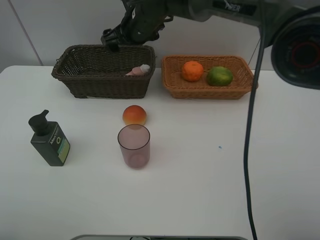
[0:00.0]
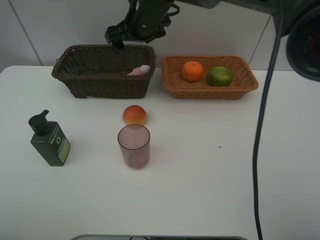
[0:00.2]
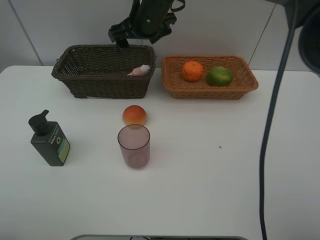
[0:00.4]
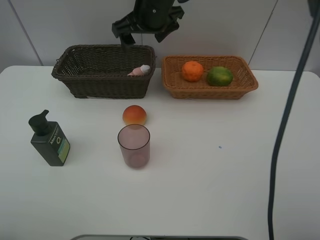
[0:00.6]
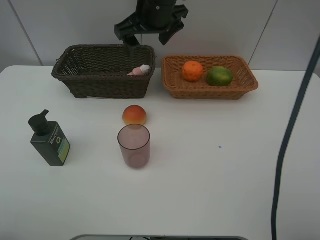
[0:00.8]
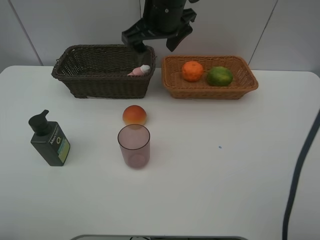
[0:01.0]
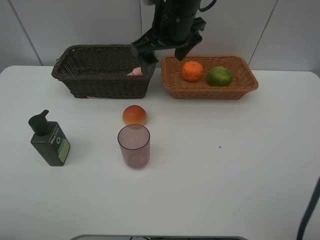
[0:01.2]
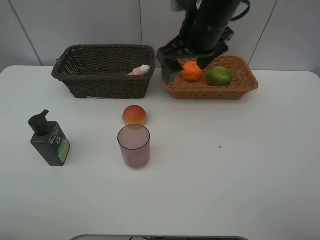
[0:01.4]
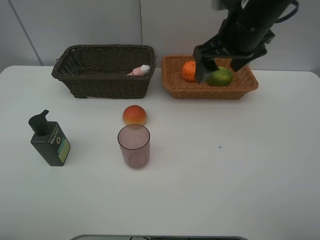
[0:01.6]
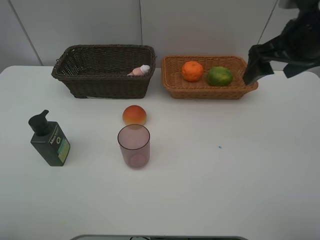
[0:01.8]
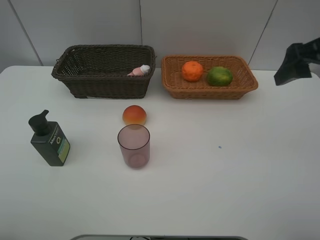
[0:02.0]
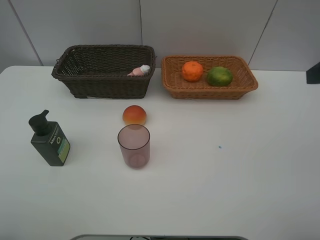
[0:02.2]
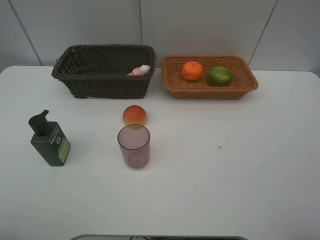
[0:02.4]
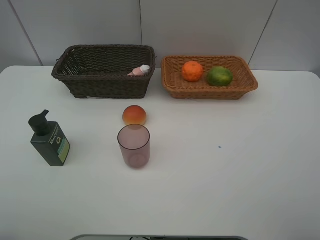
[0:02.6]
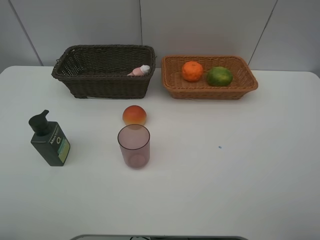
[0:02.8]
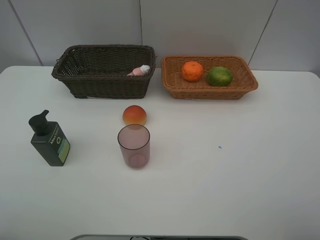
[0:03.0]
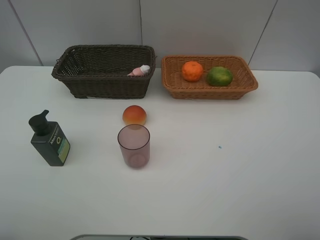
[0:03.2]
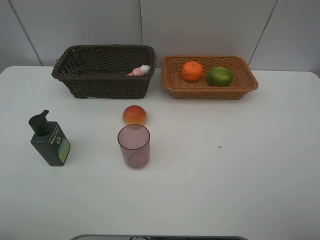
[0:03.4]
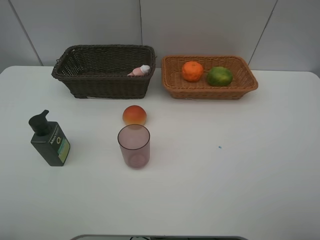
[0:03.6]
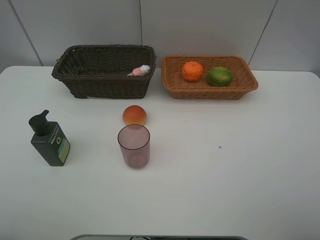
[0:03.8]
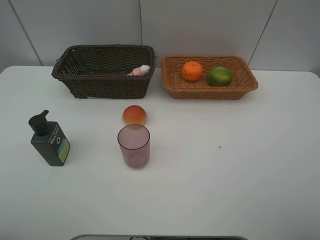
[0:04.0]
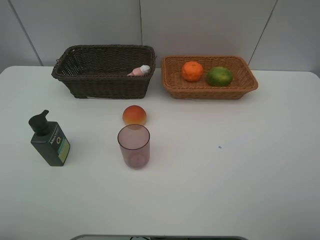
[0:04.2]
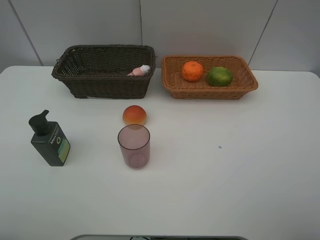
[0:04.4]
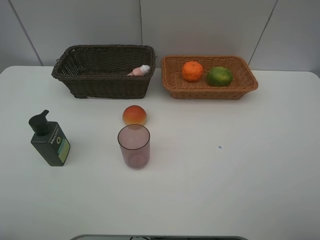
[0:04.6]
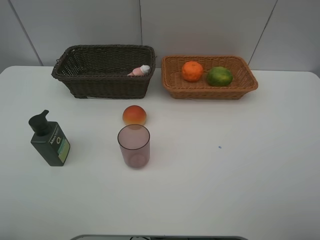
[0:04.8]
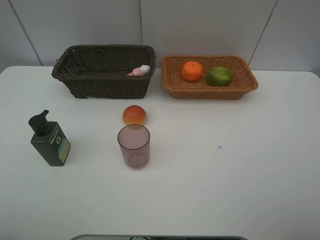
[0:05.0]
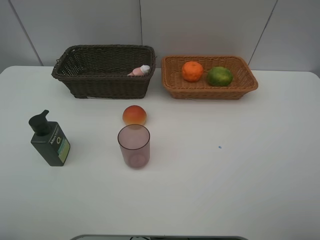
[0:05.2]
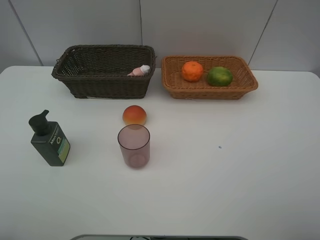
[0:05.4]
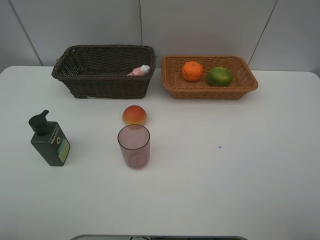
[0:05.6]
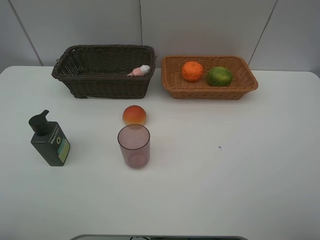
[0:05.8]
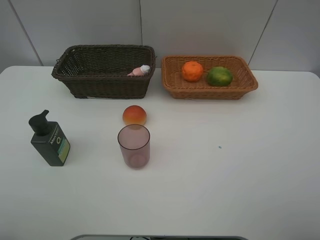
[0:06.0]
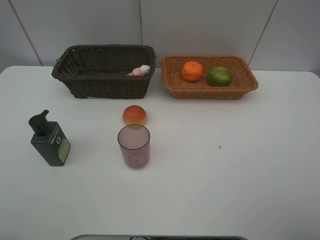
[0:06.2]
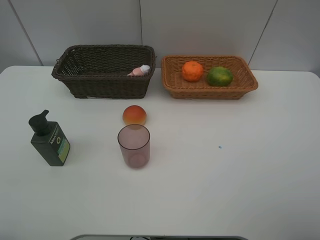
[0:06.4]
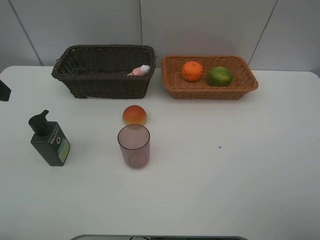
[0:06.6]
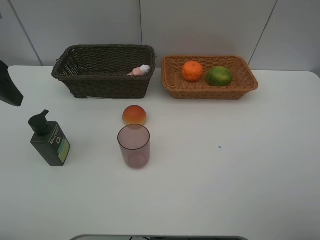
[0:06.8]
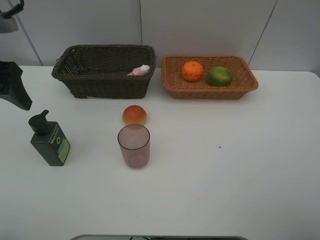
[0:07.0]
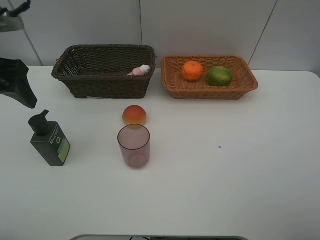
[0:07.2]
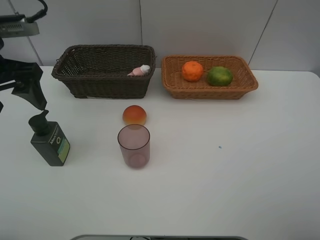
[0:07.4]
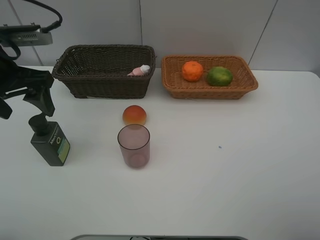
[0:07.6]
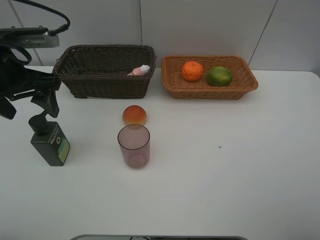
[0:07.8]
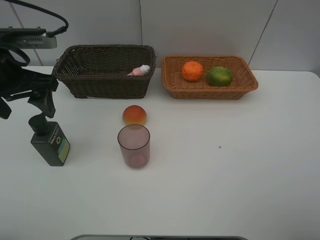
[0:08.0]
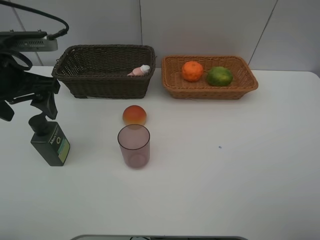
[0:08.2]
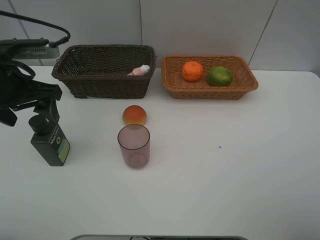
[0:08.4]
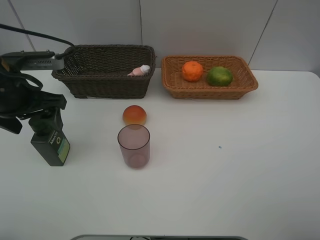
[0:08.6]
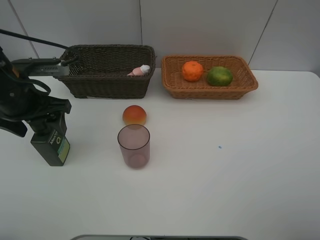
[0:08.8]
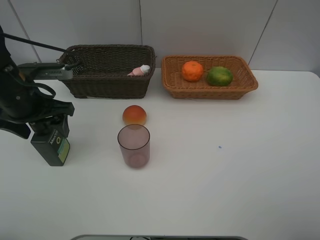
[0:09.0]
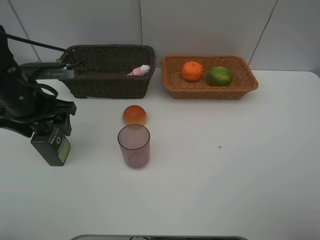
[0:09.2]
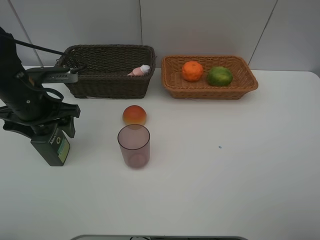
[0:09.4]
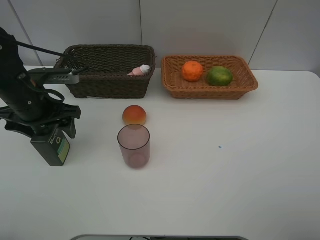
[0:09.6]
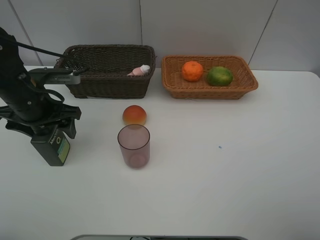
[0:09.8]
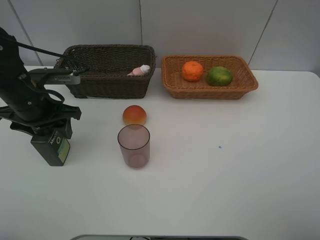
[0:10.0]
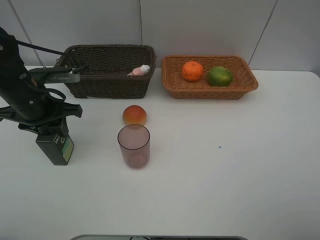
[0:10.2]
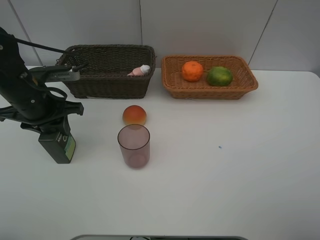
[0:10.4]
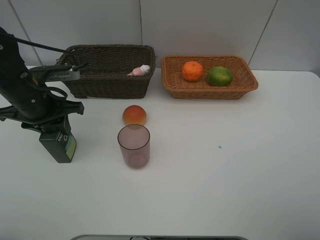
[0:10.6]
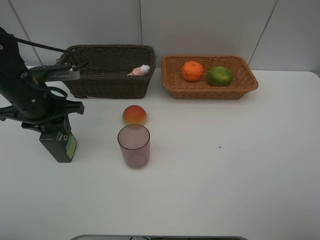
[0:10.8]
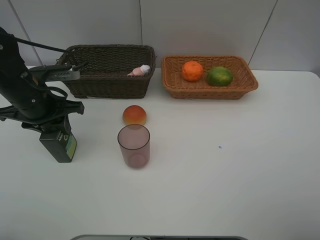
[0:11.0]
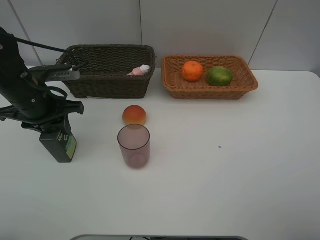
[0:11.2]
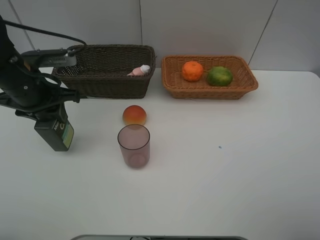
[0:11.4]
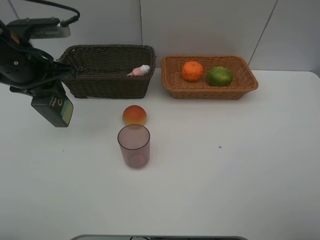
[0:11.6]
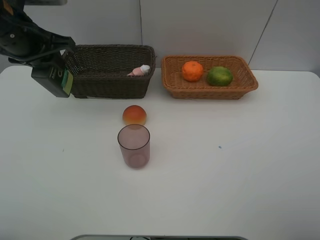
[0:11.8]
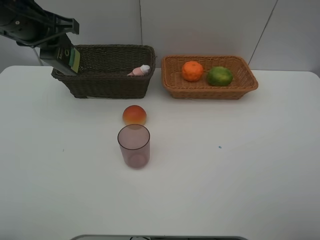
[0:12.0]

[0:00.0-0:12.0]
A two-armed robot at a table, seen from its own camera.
Task of the whole recording: place multiple objects separately in different baskets.
0:00.0 to 0:01.6: The right gripper moves to the right and backward, some 25 cm.
0:01.6 to 0:03.0: The right gripper travels backward and to the right by about 35 cm.
0:06.0 to 0:07.6: The left gripper travels forward by approximately 20 cm.
0:07.6 to 0:09.0: The left gripper moves downward, about 5 cm.
0:09.0 to 0:10.4: The left gripper closes up.
0:10.4 to 0:12.0: The left gripper travels upward and forward by about 15 cm.

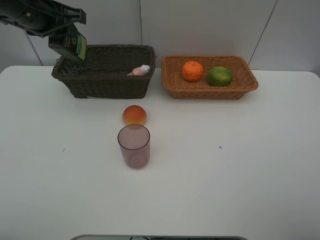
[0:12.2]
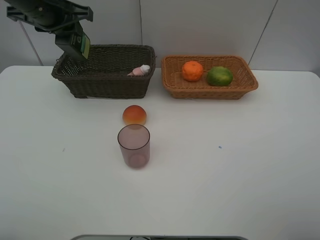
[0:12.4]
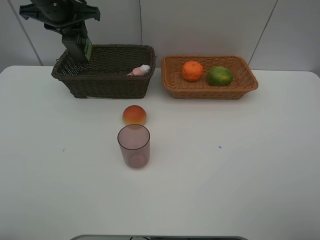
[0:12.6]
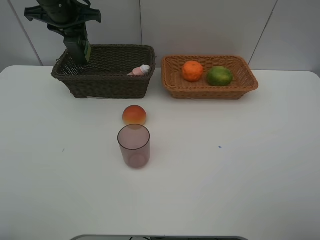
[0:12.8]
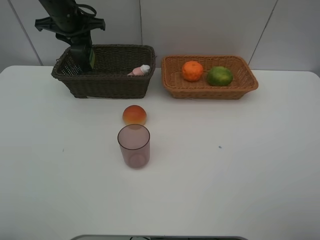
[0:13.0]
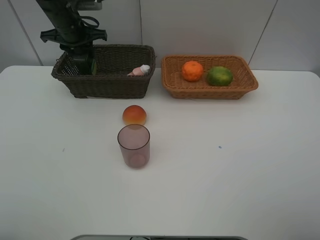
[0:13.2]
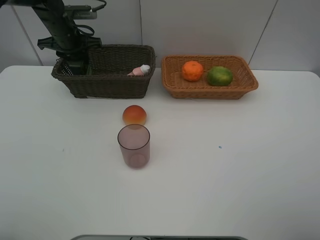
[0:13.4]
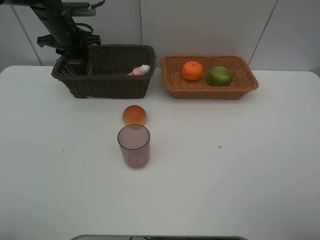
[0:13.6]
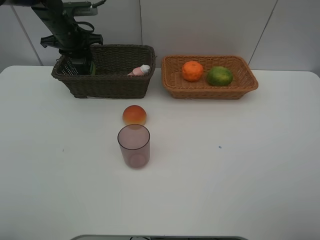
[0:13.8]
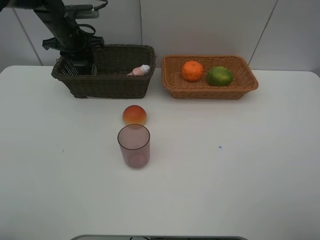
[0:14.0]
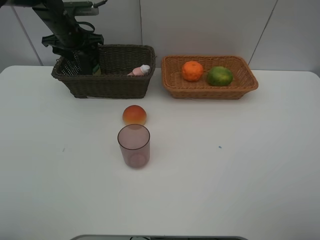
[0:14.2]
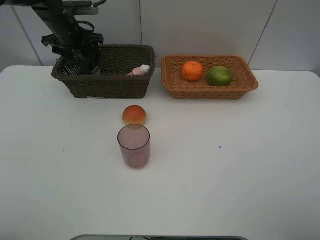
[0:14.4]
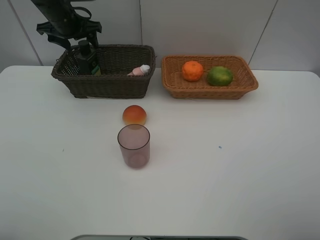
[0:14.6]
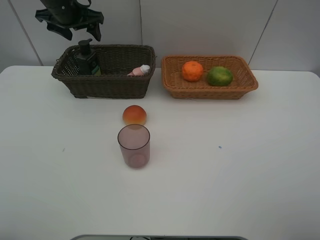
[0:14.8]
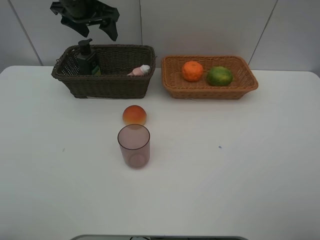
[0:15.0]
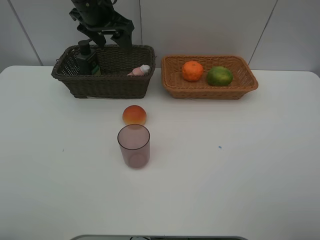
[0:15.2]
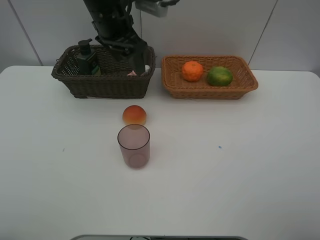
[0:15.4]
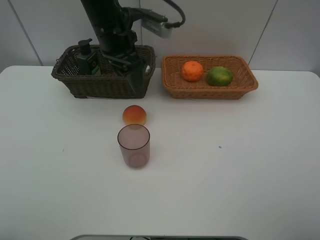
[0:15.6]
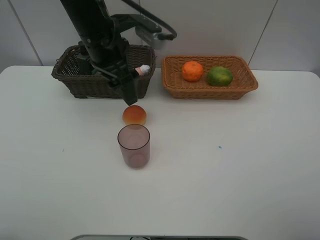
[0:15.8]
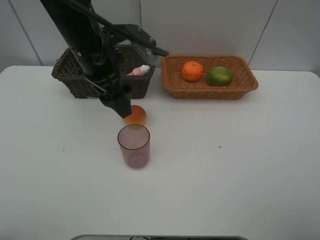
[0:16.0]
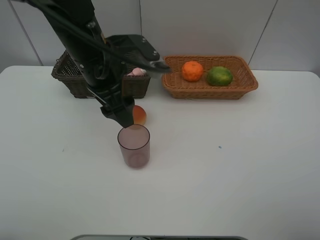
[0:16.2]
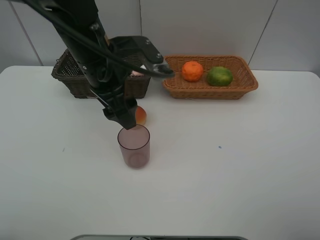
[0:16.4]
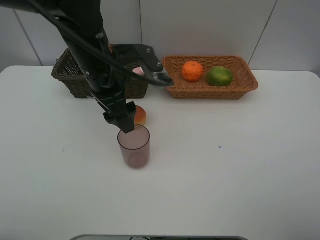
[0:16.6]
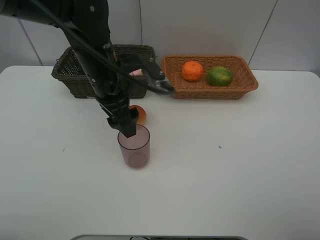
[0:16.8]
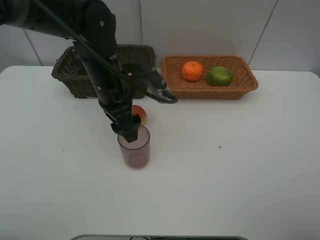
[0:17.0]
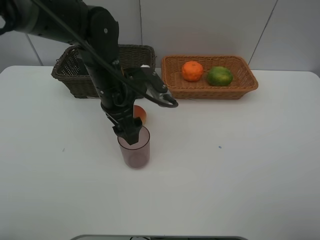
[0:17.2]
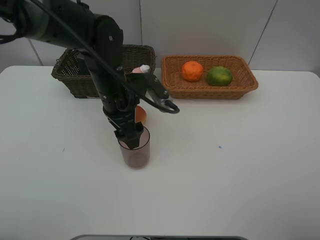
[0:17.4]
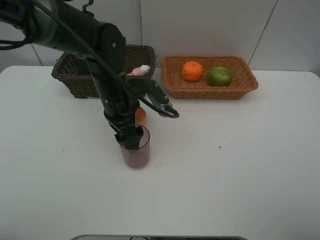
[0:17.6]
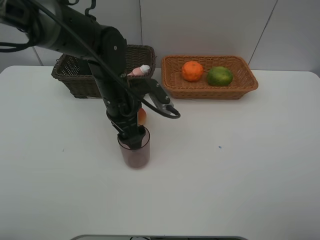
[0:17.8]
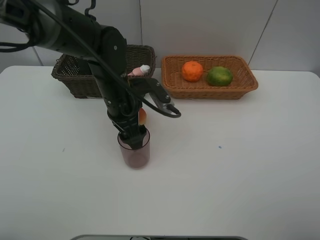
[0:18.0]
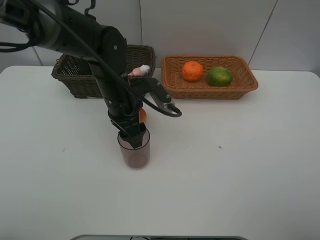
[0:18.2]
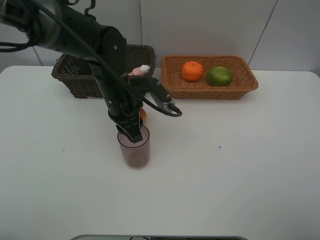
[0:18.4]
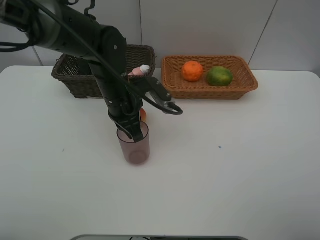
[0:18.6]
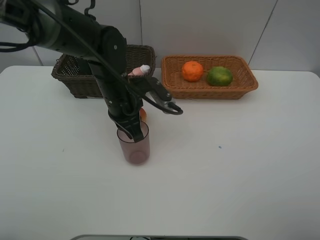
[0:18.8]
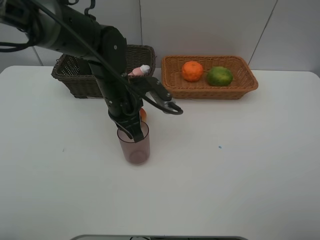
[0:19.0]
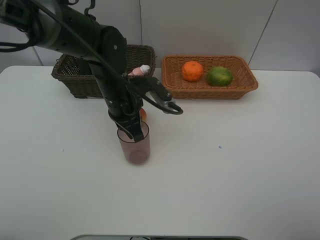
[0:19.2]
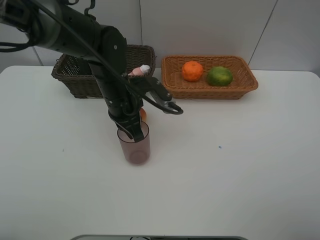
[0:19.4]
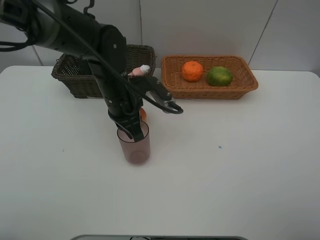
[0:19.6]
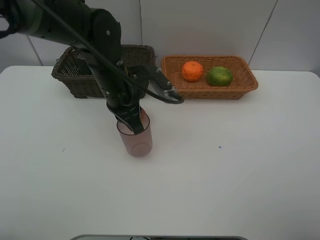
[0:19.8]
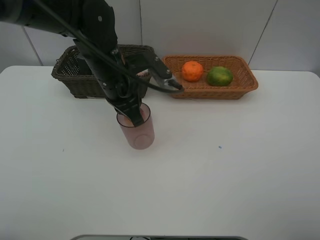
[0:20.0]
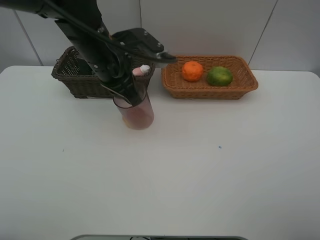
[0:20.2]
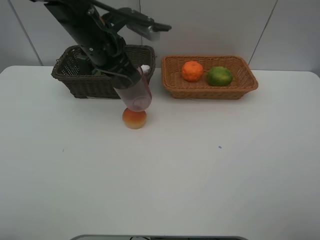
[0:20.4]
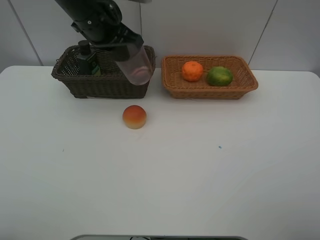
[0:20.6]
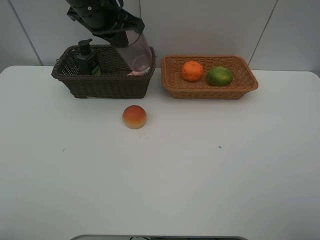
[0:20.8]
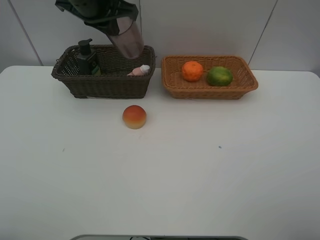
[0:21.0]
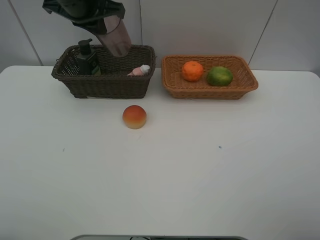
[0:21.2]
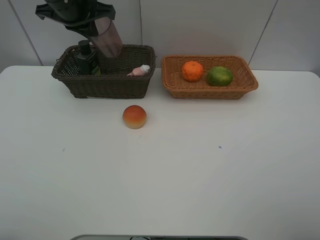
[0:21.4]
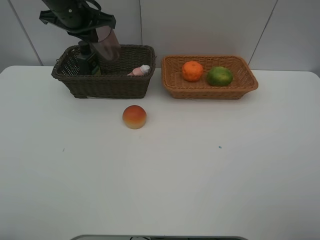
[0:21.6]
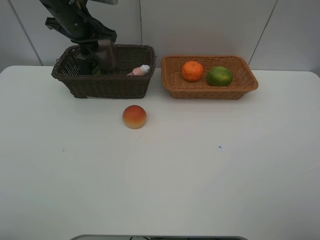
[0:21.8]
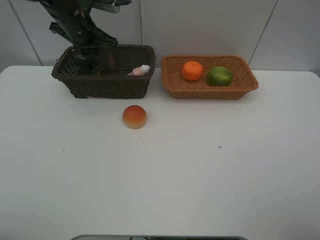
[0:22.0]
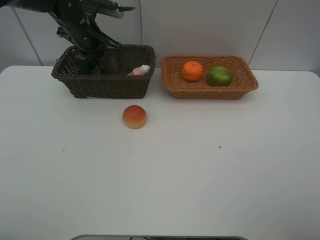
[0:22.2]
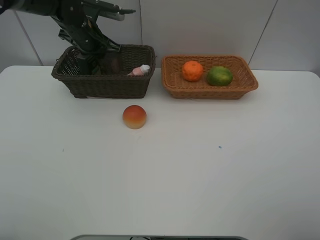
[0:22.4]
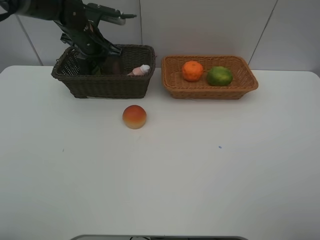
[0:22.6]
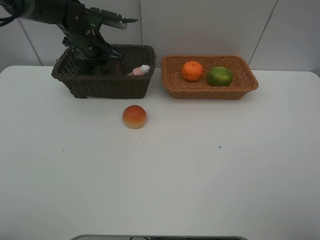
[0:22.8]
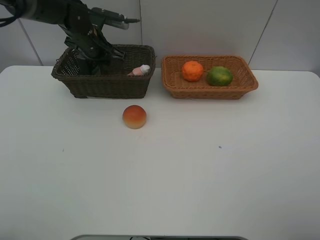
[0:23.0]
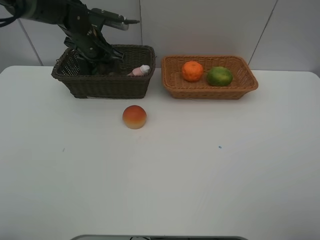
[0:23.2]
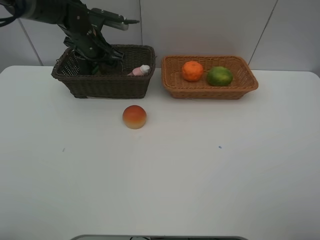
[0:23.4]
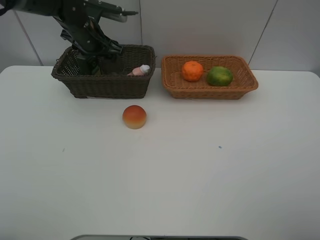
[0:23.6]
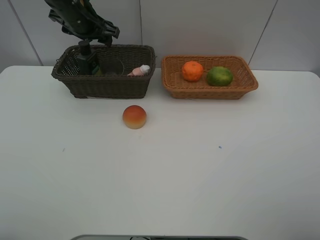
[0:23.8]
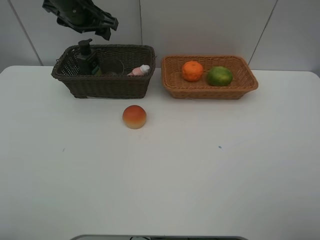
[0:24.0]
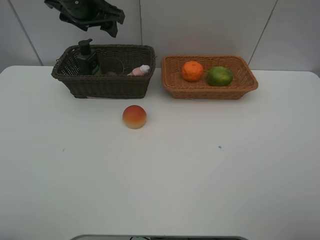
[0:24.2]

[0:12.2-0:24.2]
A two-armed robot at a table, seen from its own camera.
Task of the whole recording: place multiple objects separately in different baskets.
0:12.2 to 0:13.8: The left gripper heads forward and downward, covering some 15 cm.
0:13.8 to 0:15.2: The left gripper moves to the right, upward and backward, about 15 cm, and opens its fingers.
0:15.2 to 0:16.6: The left gripper heads backward, covering approximately 15 cm.
0:16.6 to 0:18.2: The left gripper goes approximately 5 cm downward.
0:18.2 to 0:19.8: The left gripper closes up.
0:19.8 to 0:21.2: The left gripper is displaced upward, forward and to the left by about 15 cm.
0:21.2 to 0:22.6: The left gripper shifts approximately 15 cm downward and forward.
0:22.6 to 0:24.2: The left gripper travels upward and backward by roughly 10 cm, and opens.
